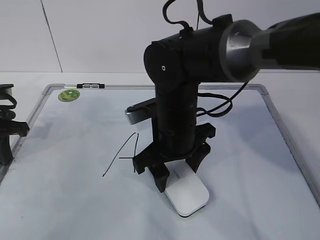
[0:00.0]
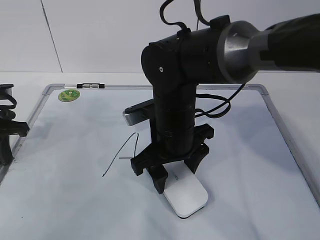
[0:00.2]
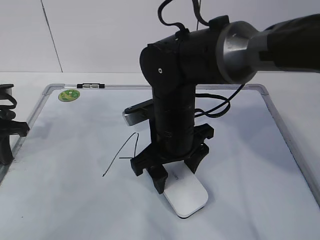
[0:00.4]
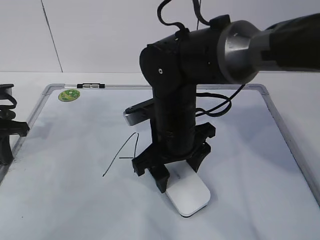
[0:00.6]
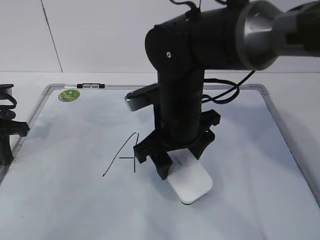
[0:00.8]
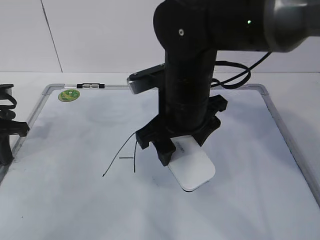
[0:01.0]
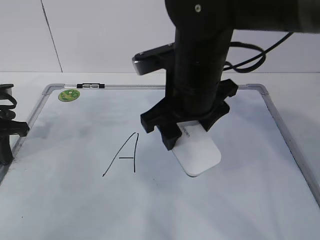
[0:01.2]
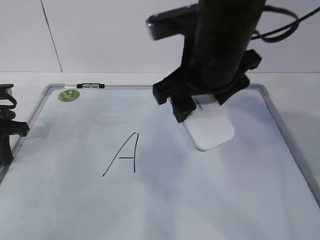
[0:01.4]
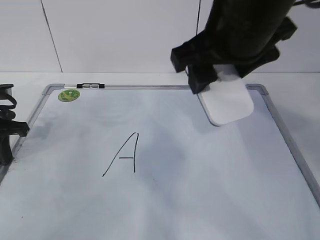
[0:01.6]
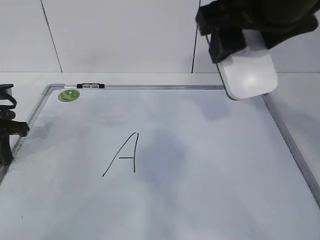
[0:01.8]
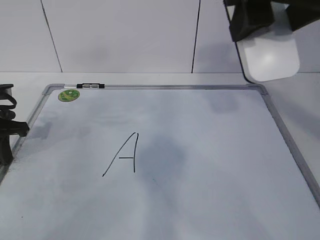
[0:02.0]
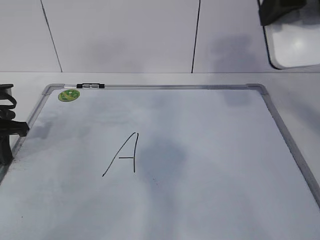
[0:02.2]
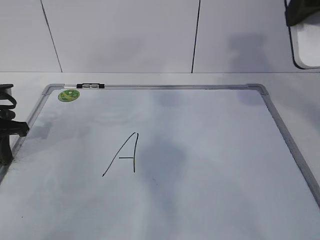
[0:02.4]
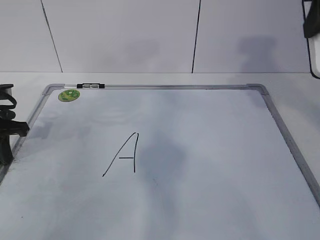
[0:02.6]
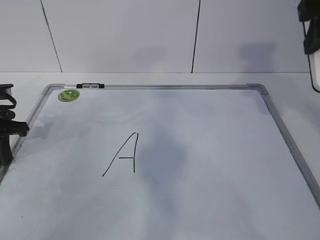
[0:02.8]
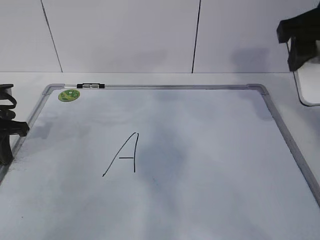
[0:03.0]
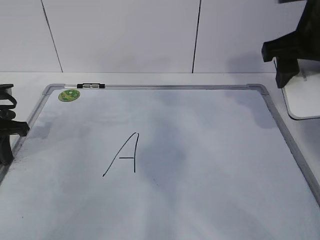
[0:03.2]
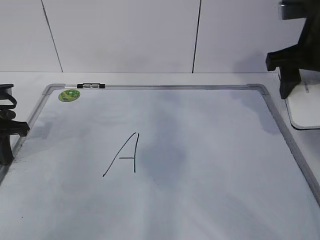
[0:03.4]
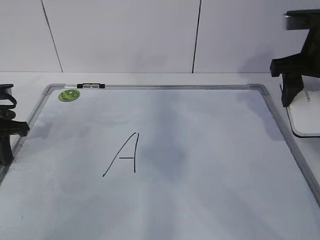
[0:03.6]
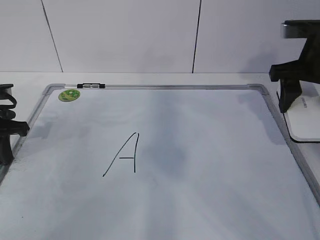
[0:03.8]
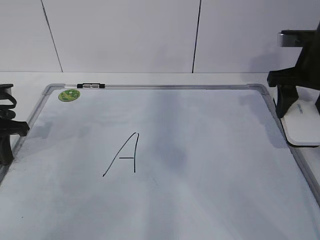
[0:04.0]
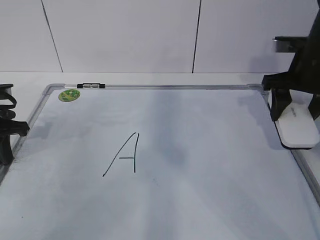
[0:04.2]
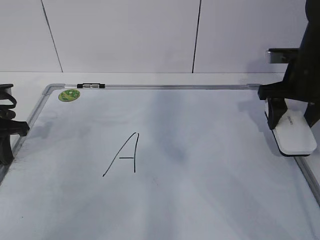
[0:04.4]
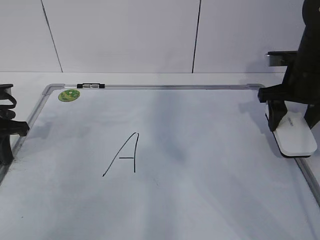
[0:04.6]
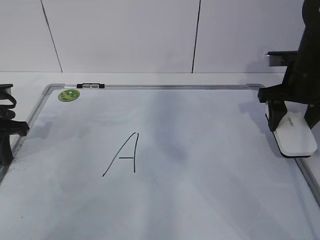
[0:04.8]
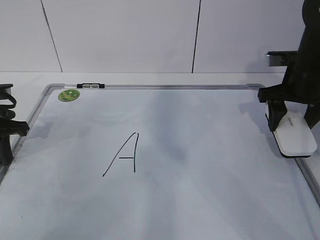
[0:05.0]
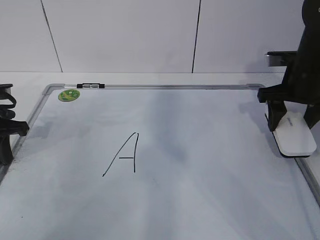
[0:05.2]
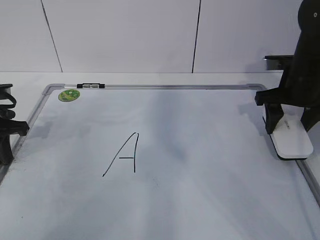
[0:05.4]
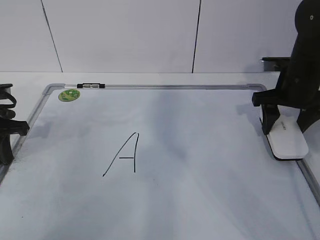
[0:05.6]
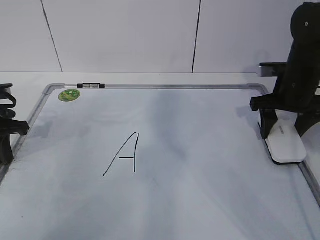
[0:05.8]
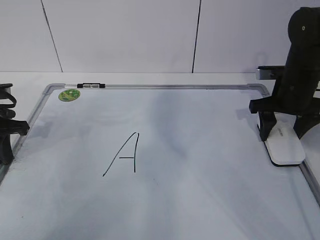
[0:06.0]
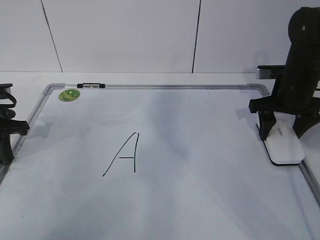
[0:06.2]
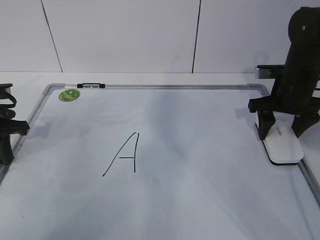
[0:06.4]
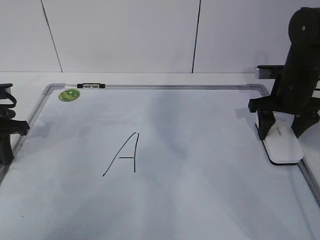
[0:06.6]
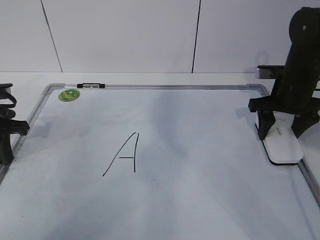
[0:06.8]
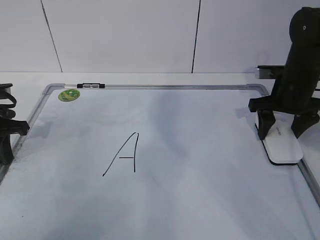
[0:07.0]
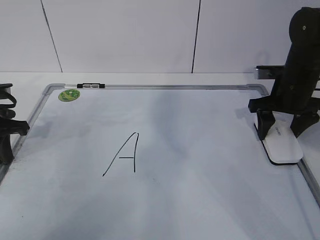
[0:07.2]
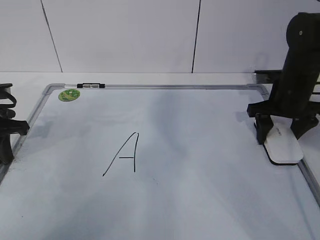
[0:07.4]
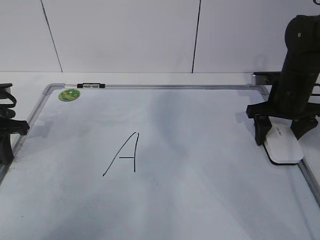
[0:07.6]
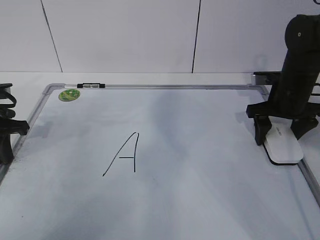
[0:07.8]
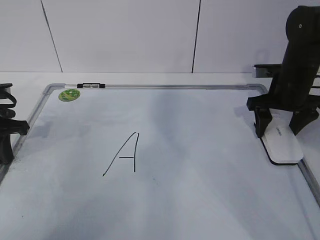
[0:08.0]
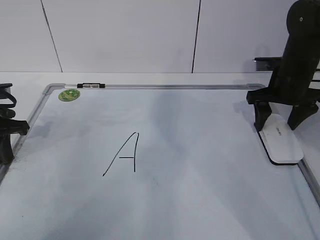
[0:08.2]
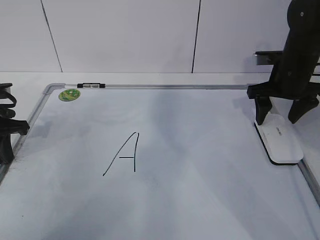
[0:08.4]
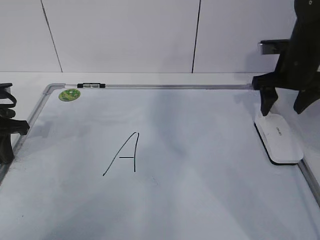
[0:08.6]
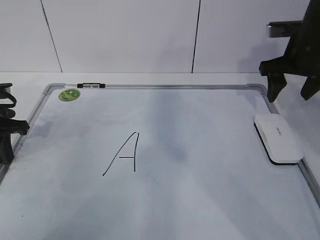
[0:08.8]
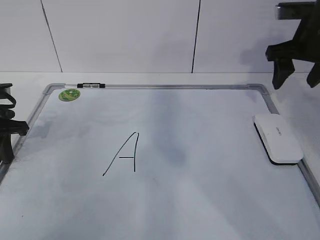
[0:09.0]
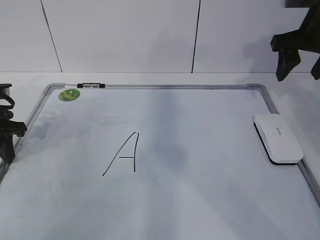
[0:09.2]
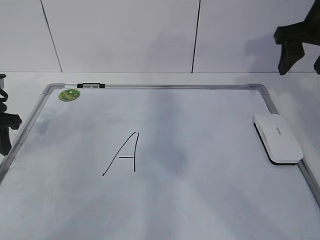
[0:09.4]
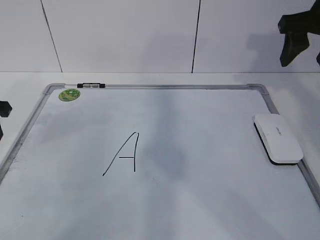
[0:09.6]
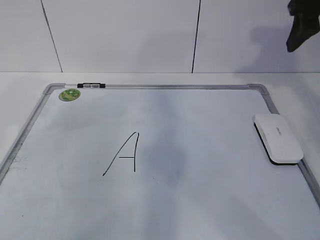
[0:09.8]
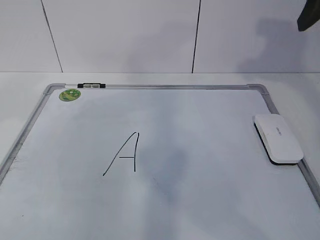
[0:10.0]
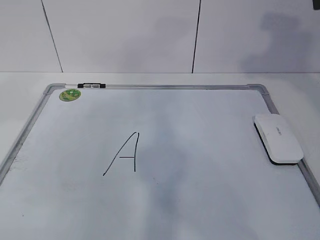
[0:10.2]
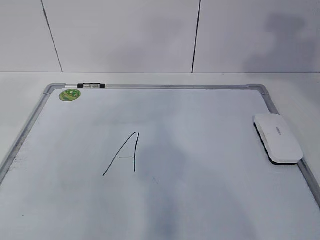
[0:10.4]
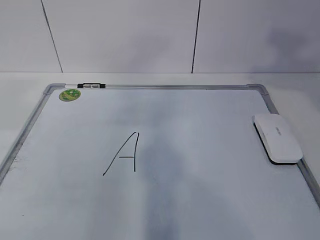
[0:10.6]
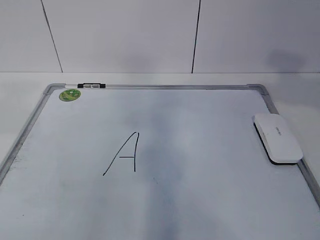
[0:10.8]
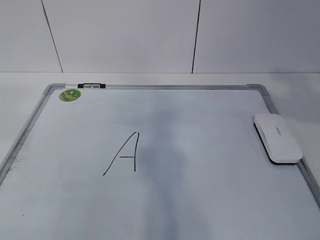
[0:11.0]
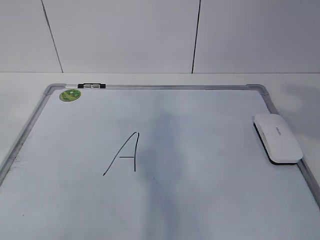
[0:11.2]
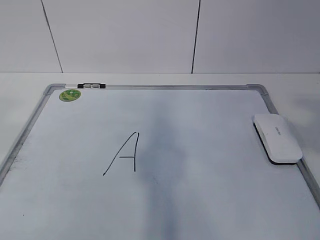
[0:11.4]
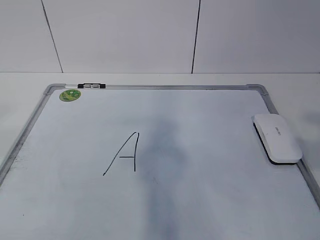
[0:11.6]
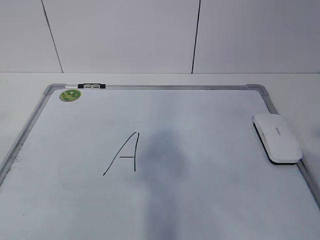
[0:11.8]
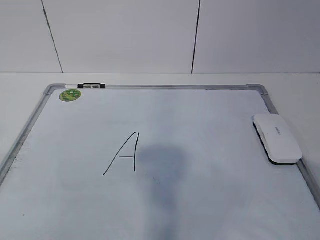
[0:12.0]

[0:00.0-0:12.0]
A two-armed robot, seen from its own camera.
Task of the whole recording: pick up the eraser on the blackboard and erase the letter "a".
Step, 0:00.0 to 0:02.0: Put down the eraser with your right hand.
0:00.0 to 0:01.6: The right gripper moves upward, approximately 15 cm.
0:01.6 to 0:03.0: The right gripper is displaced to the right by about 15 cm.
0:03.0 to 0:04.4: The right gripper shifts approximately 15 cm downward and forward.
0:04.4 to 0:06.0: The grippers move only a little.
0:06.0 to 0:07.6: The right gripper opens up.
0:07.6 to 0:09.0: The right gripper moves upward, roughly 10 cm.
0:09.0 to 0:10.4: The grippers both shift upward and backward by approximately 25 cm. The left gripper opens.

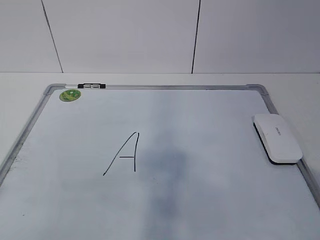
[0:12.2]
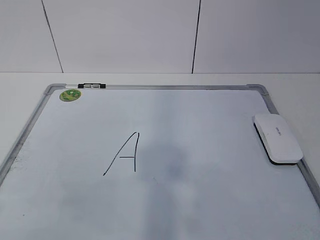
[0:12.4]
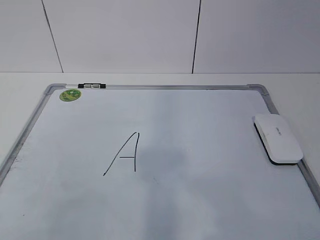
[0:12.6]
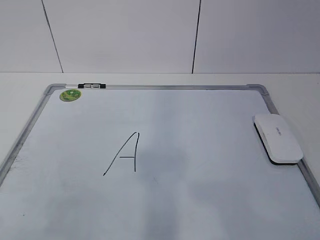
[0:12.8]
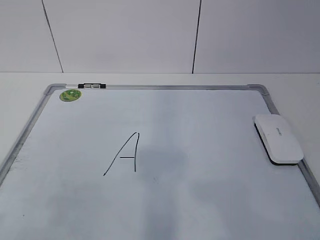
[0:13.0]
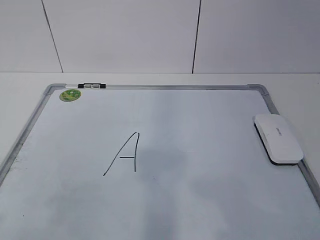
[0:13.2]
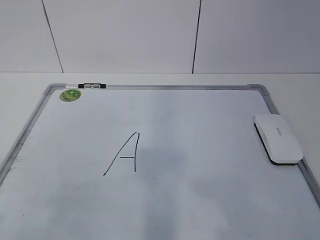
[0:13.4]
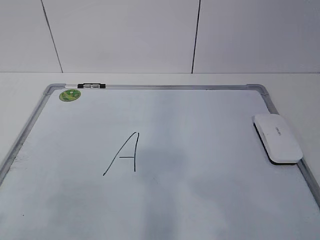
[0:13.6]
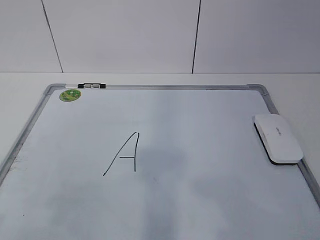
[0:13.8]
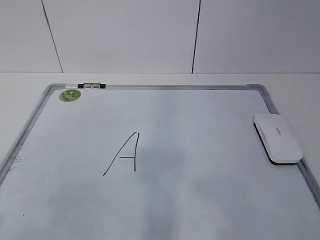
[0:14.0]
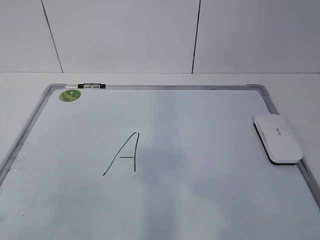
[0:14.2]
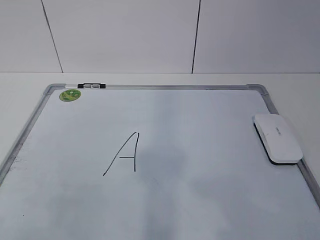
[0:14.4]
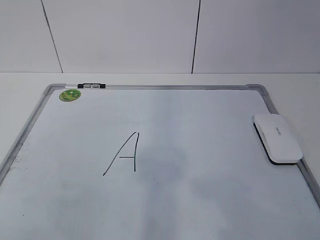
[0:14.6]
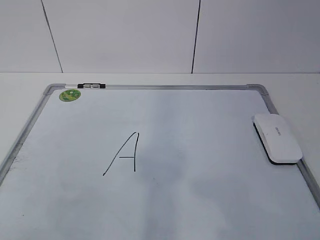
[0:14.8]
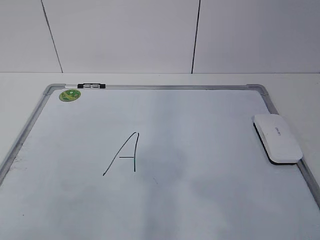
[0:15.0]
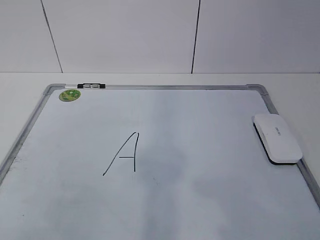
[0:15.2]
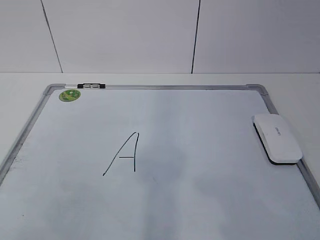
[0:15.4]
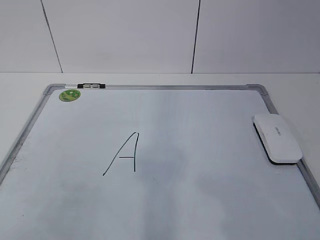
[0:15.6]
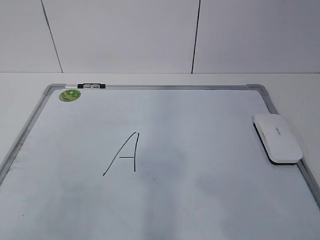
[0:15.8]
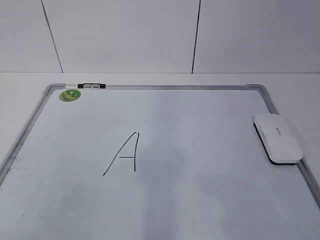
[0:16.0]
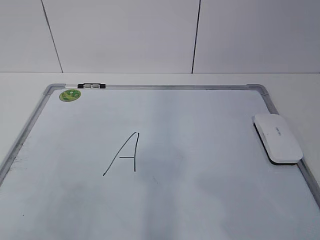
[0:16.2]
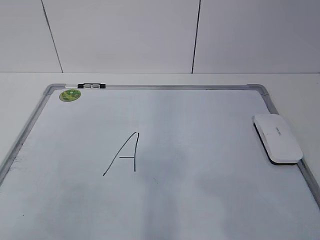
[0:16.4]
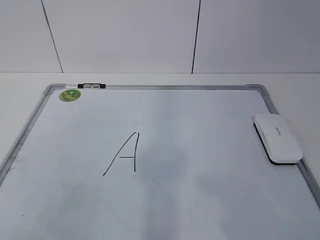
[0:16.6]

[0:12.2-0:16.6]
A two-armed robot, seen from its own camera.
Task of the whole recording: pick up the eraser on the blackboard and erase the letter "a".
0:12.2 to 0:13.6: The two grippers go approximately 10 cm downward.

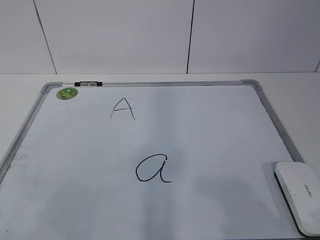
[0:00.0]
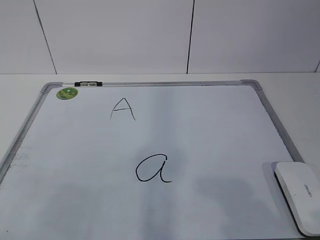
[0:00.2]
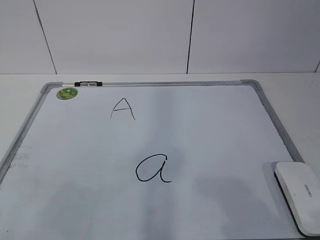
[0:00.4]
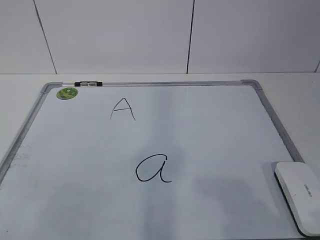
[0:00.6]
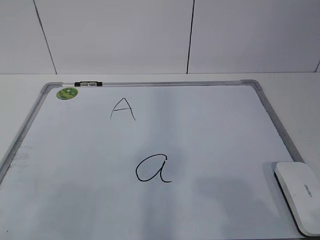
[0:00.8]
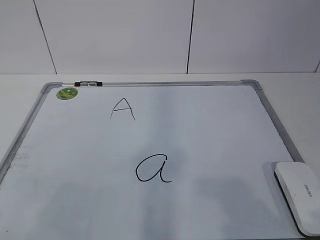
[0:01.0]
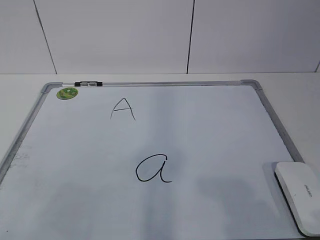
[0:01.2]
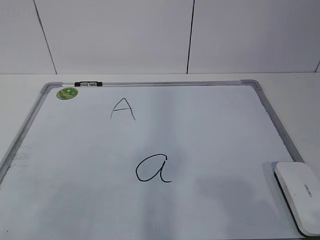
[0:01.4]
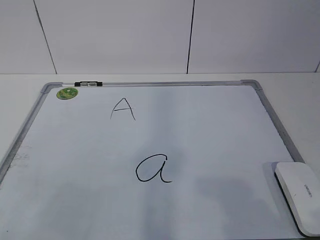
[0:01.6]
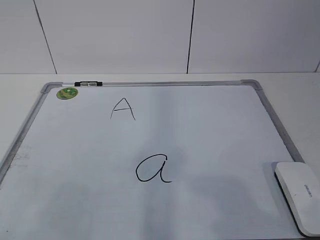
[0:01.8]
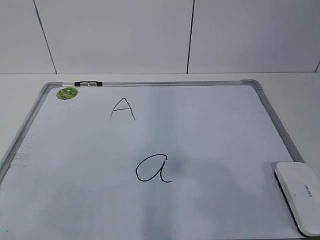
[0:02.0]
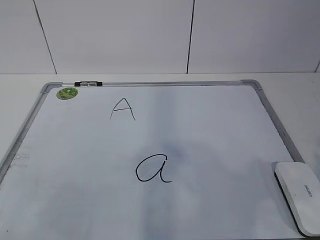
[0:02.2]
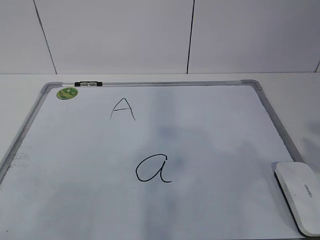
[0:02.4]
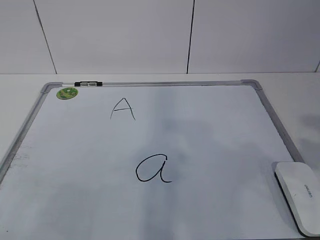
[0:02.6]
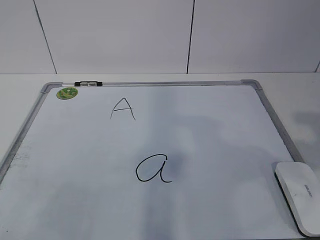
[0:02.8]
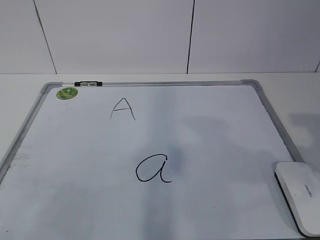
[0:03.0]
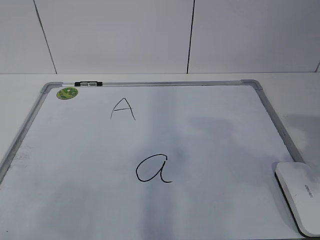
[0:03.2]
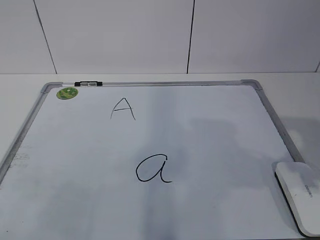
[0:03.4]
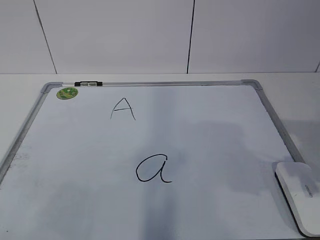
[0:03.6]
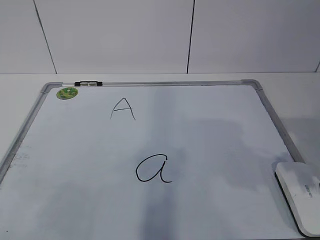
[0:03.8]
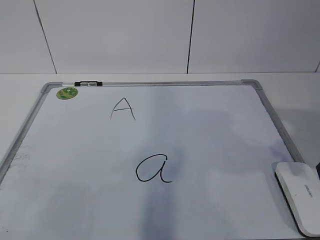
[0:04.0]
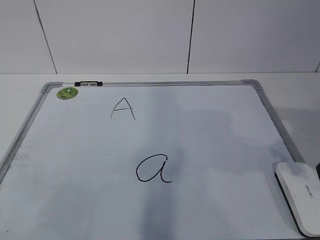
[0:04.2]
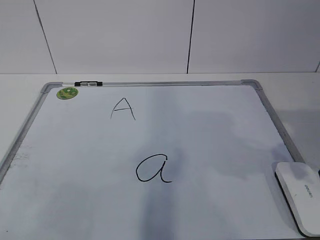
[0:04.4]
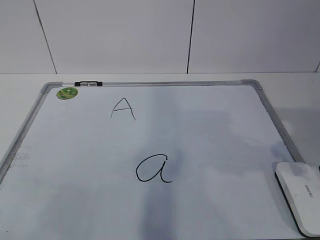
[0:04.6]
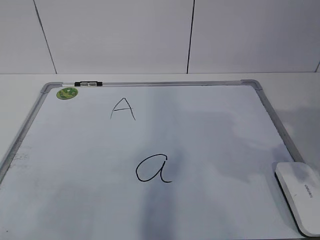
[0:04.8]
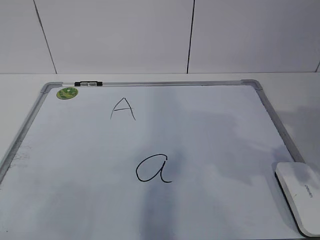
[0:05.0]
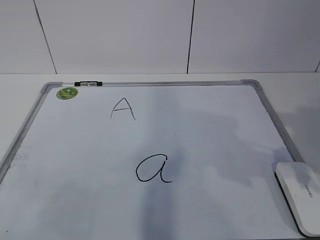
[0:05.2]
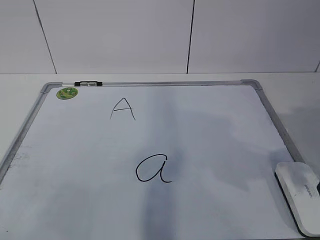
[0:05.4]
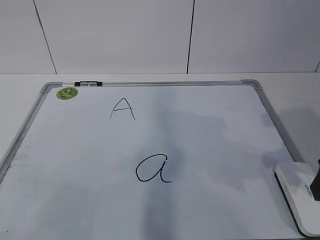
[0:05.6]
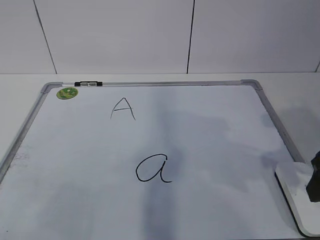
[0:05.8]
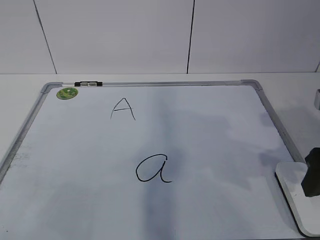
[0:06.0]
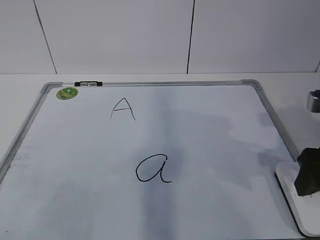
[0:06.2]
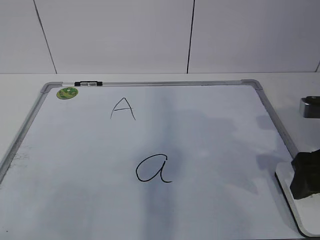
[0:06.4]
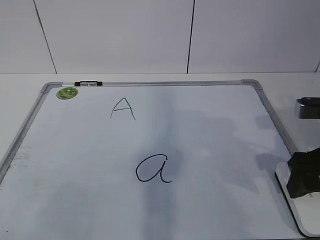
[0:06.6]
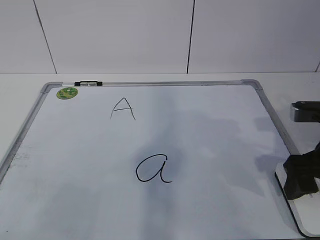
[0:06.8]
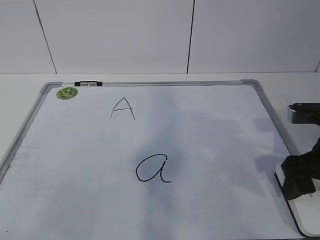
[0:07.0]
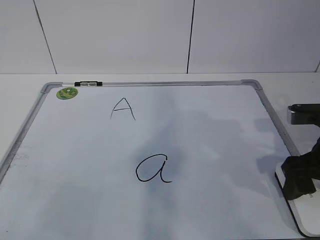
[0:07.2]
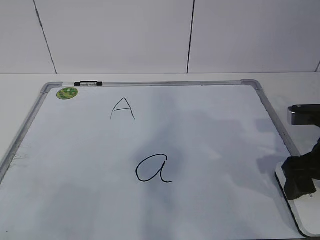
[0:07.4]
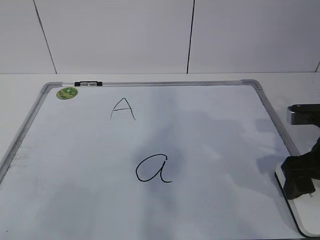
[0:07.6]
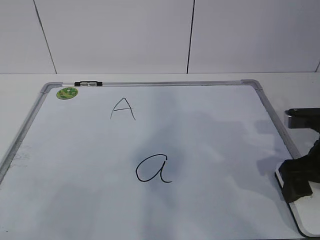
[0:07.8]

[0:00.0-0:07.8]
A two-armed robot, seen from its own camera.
Task of the whole recording: pick up the eraser on the blackboard and erase the letter "a".
0:04.6 to 0:06.2: The grippers move only a little.
0:06.2 to 0:07.8: The right gripper moves approximately 5 cm.
